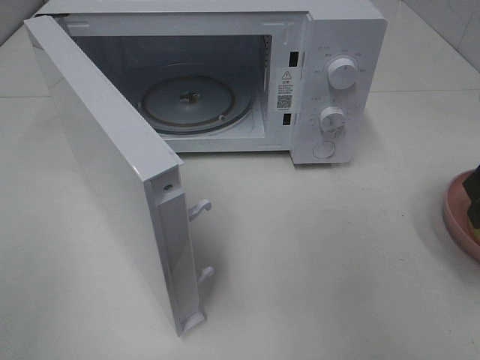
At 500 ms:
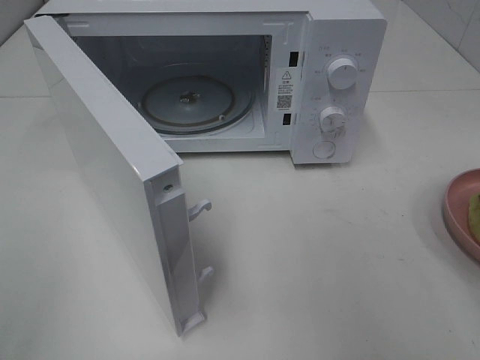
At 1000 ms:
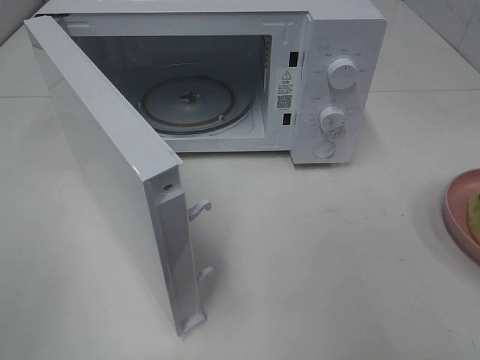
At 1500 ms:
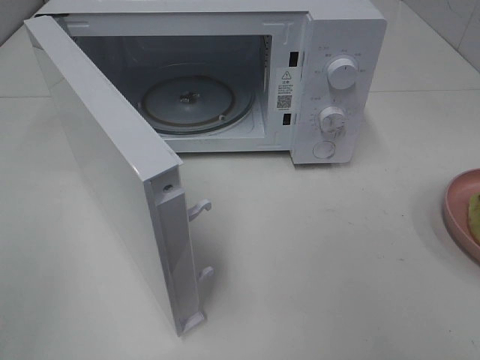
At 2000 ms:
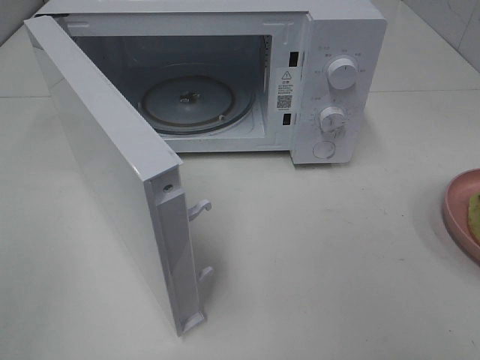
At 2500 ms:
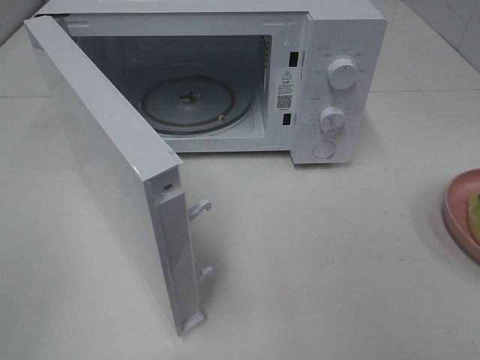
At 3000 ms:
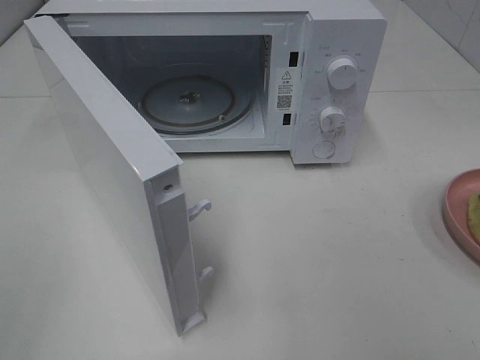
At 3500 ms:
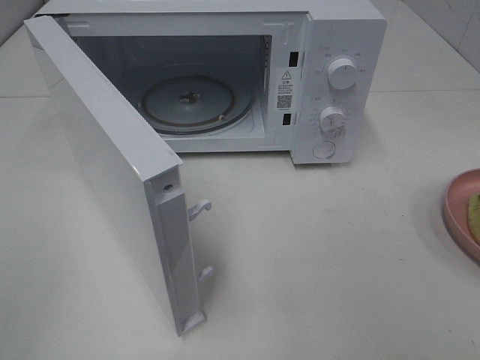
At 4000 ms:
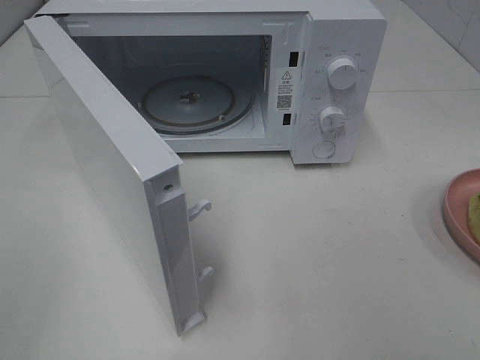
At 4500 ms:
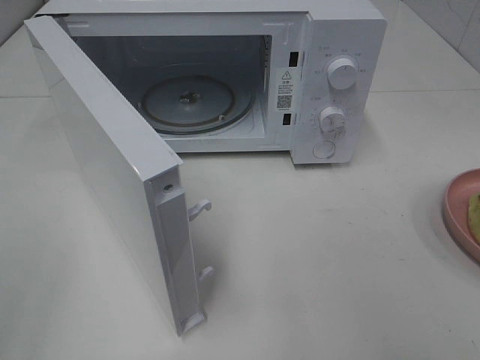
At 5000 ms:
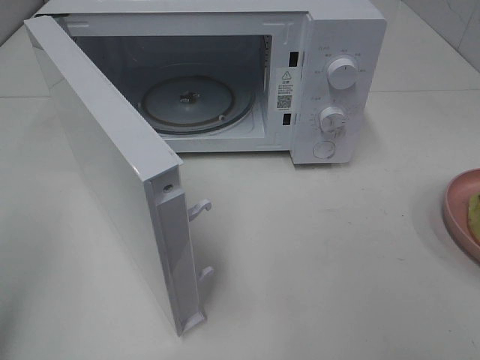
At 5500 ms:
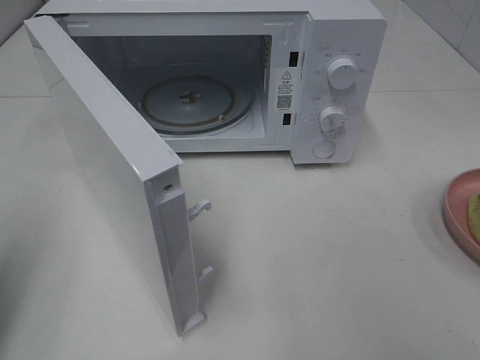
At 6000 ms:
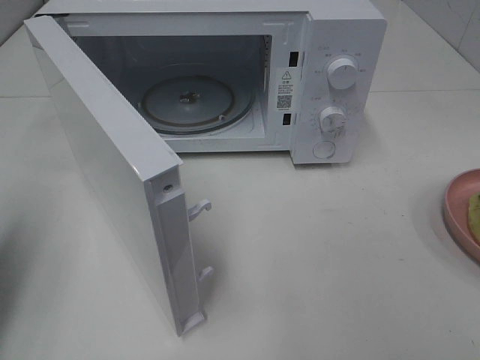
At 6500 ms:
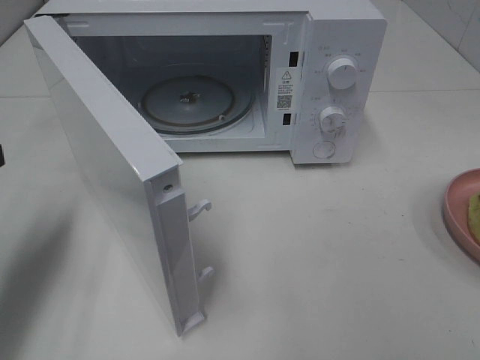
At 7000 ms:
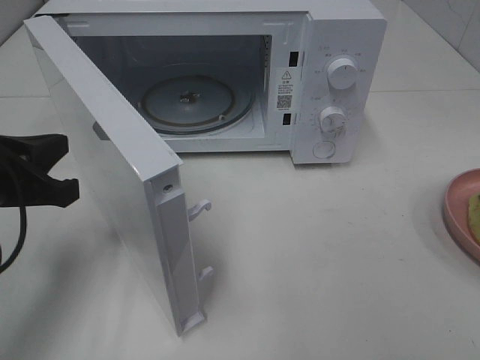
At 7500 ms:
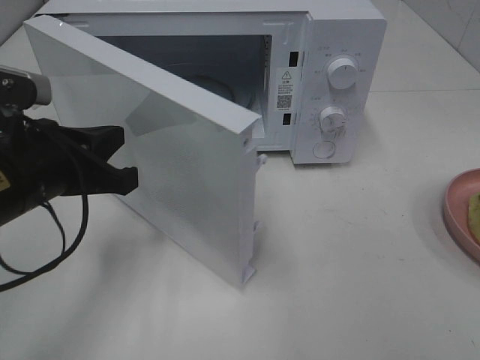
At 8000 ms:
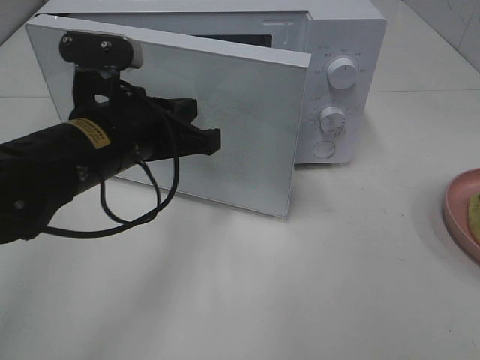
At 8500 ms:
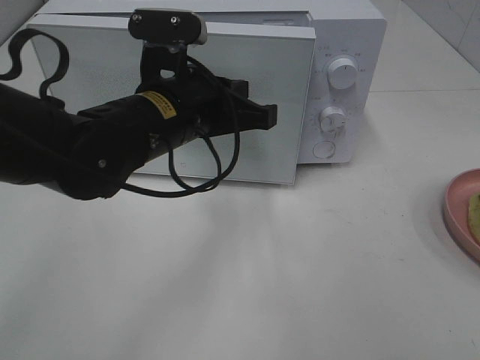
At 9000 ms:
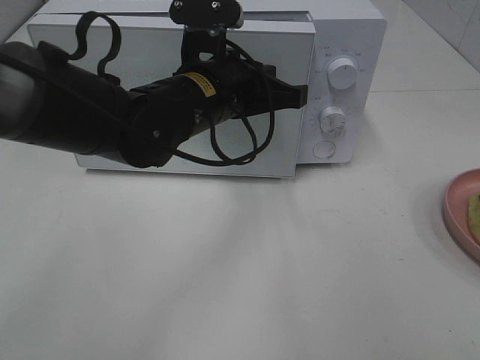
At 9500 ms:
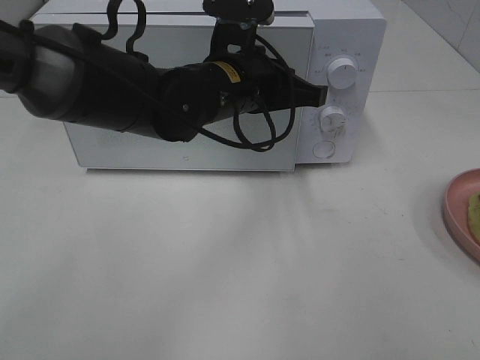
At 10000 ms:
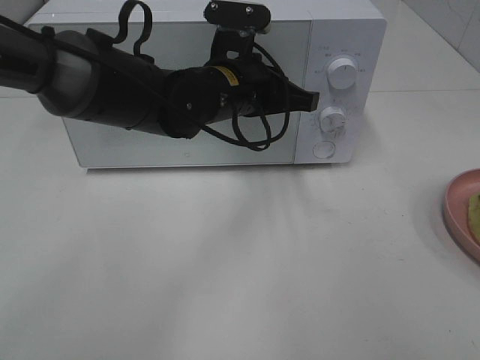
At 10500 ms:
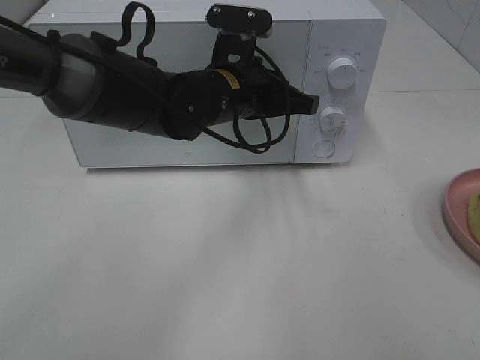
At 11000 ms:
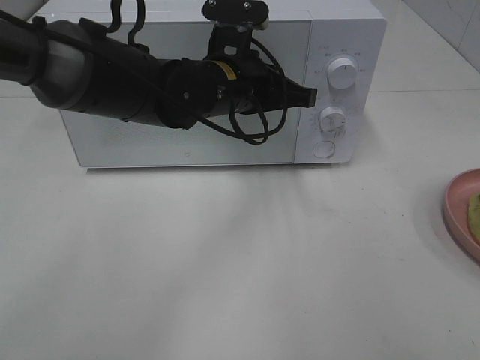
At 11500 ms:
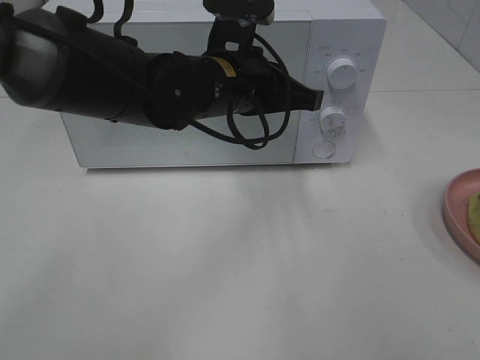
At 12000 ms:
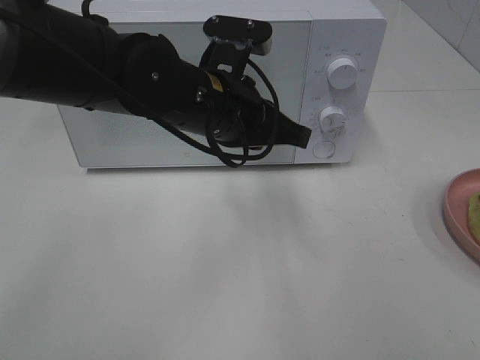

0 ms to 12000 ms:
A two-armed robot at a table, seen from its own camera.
Task of the whole recording: Heat Sandwich.
Step, 0 ms to 11500 ms: Left hand: close the microwave door.
0 ms to 2000 ms: The right gripper goes some 20 cm backward.
4000 ms to 6000 ms: The left gripper shifts approximately 20 cm forward, and closes its fingers.
6000 ms to 8000 ms: The left gripper heads to the right, covering some 20 cm.
8000 ms to 10000 ms: The left gripper heads to the right and forward, covering some 15 cm.
10000 ms to 12000 ms: The left gripper travels backward by some 5 cm.

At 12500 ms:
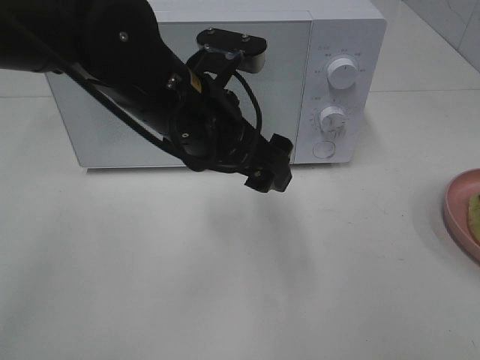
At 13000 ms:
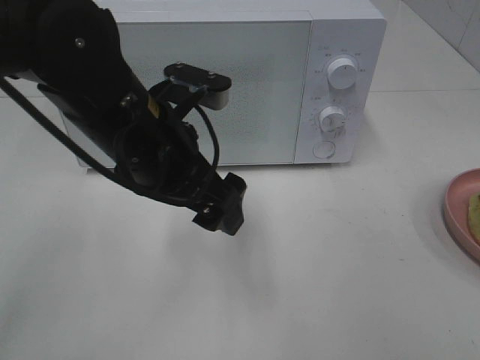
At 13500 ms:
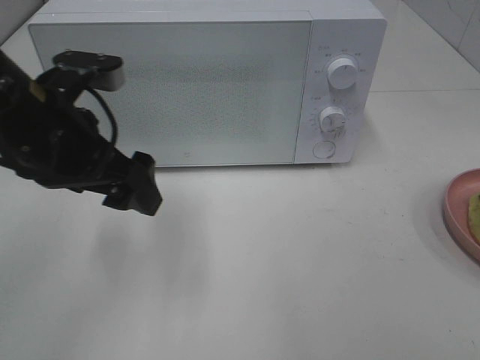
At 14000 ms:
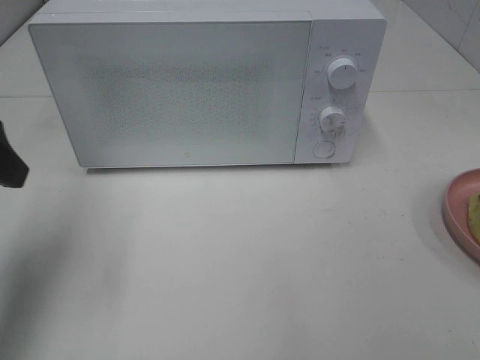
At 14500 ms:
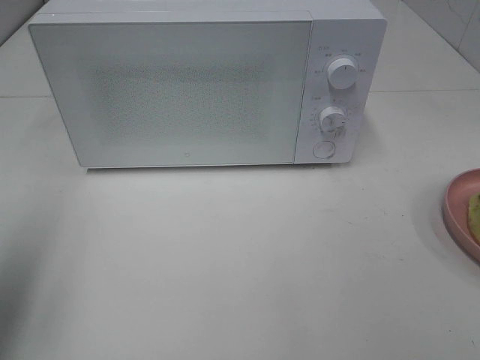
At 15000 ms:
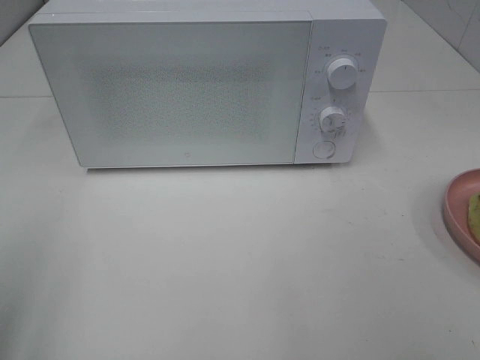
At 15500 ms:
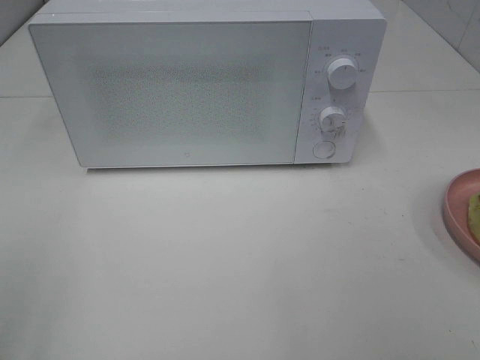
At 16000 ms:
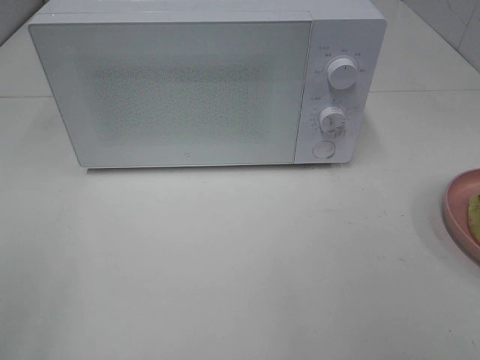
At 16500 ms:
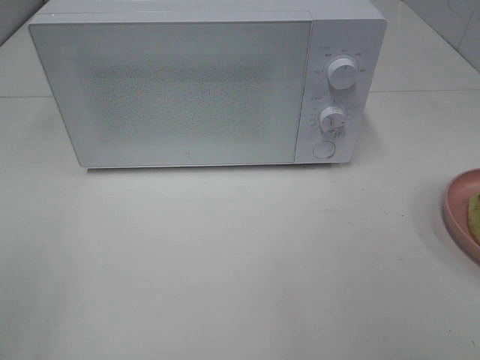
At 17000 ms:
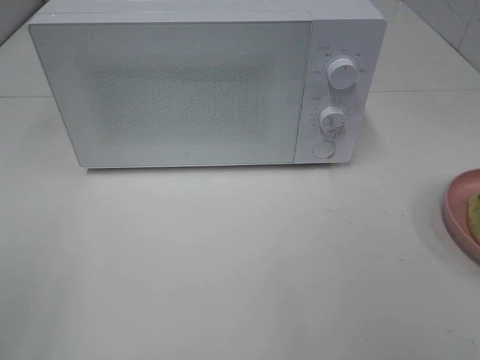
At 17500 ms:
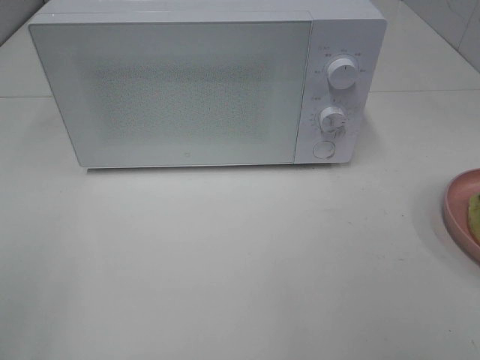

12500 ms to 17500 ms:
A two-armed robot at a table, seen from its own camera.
Task of the whole recording: Heat Sandwich.
12500 ms to 15000 ms: The left gripper shifts roughly 35 cm to the left and backward.

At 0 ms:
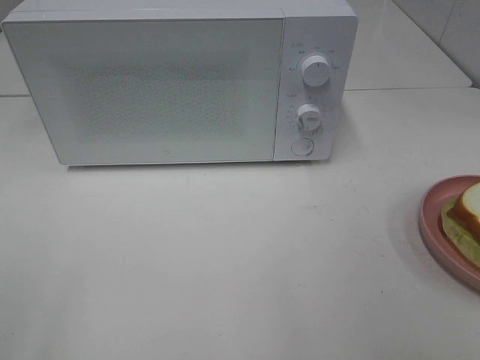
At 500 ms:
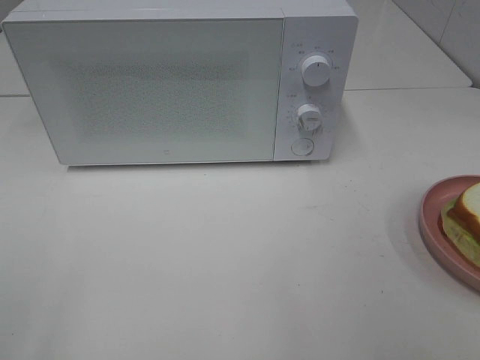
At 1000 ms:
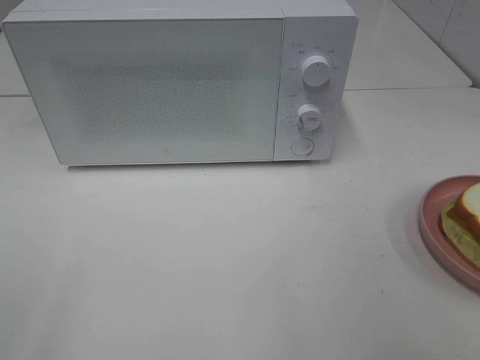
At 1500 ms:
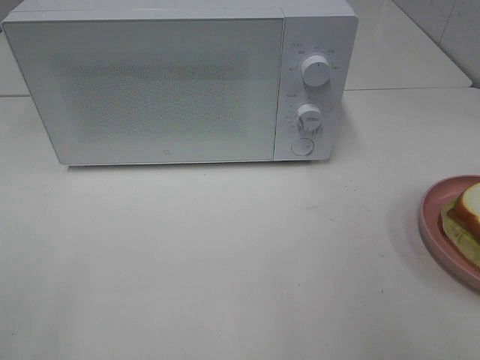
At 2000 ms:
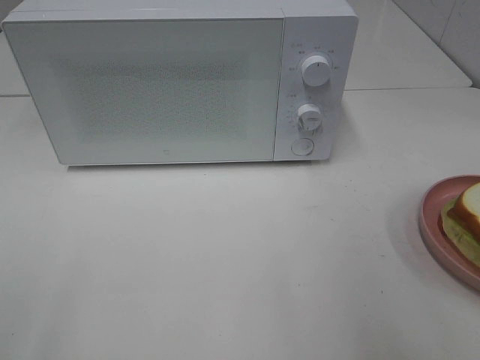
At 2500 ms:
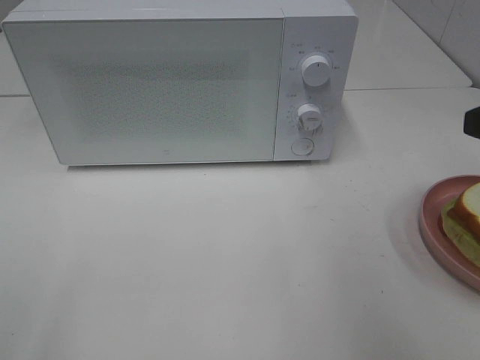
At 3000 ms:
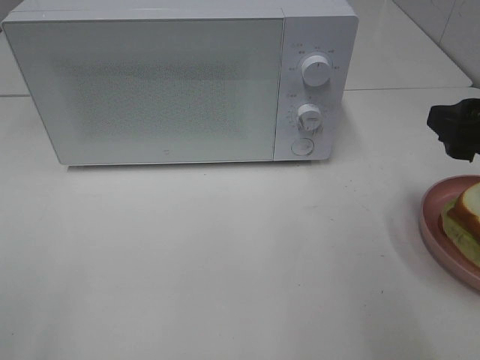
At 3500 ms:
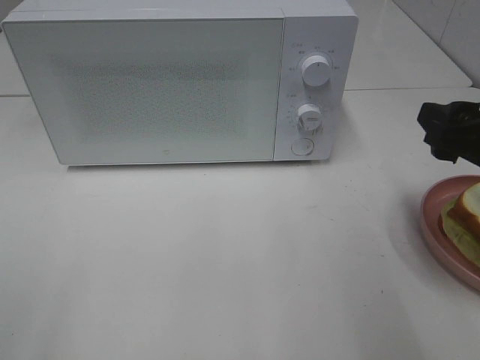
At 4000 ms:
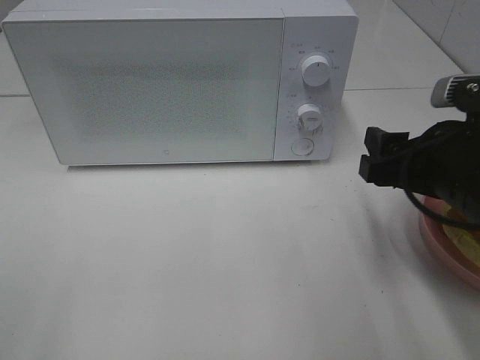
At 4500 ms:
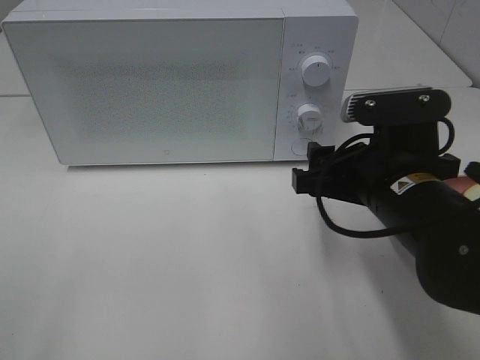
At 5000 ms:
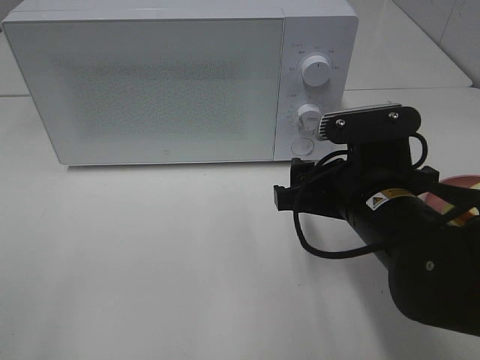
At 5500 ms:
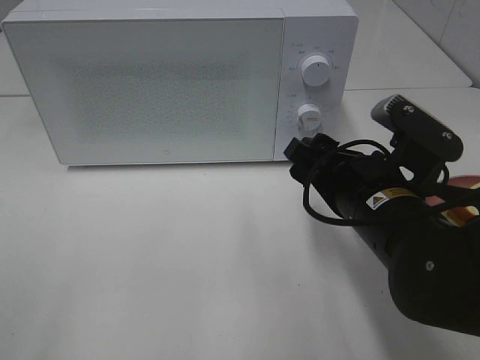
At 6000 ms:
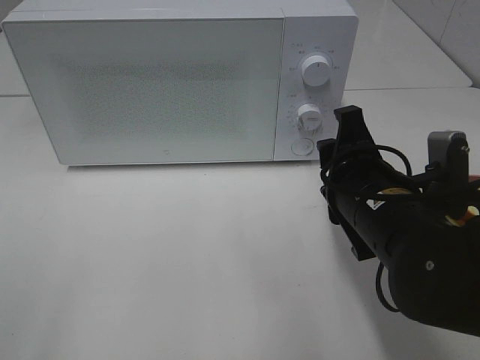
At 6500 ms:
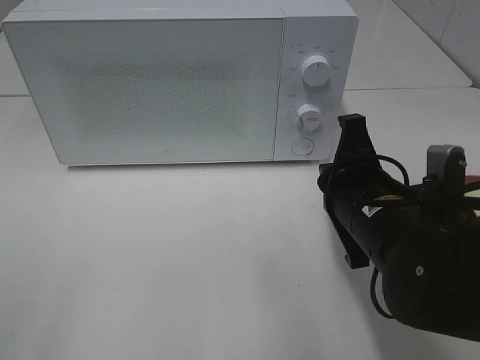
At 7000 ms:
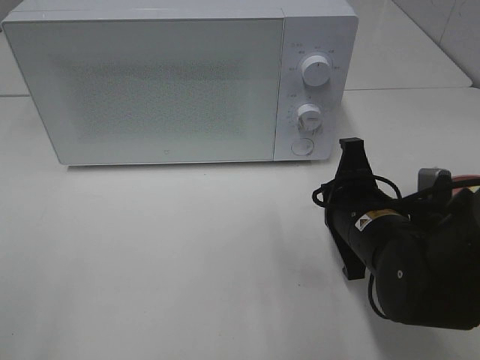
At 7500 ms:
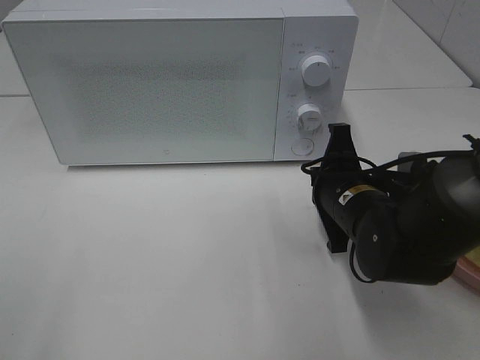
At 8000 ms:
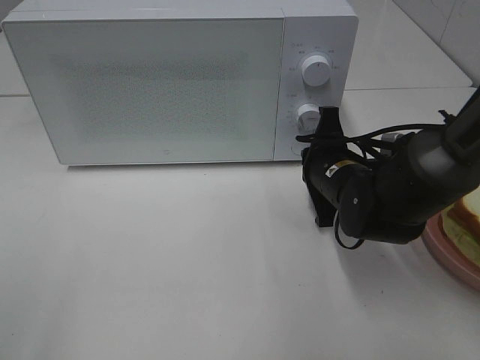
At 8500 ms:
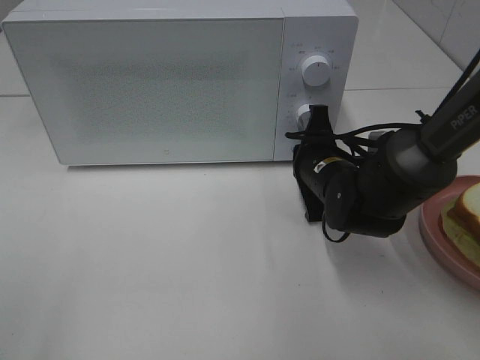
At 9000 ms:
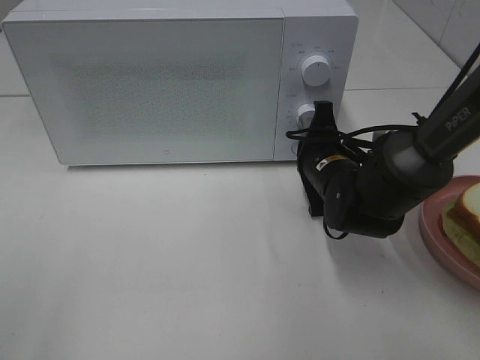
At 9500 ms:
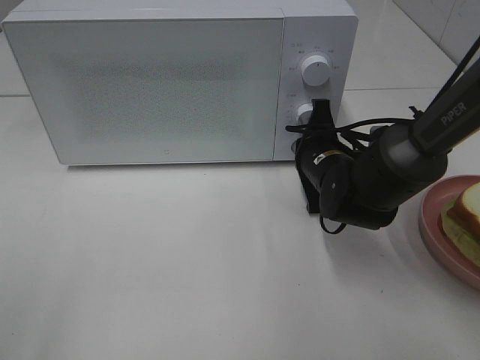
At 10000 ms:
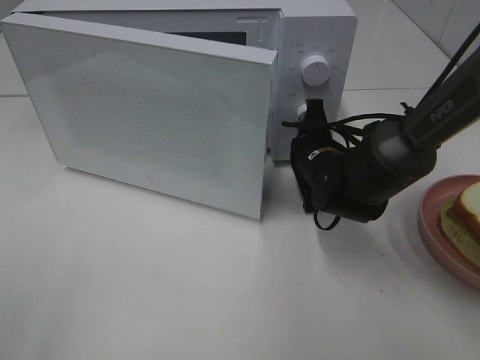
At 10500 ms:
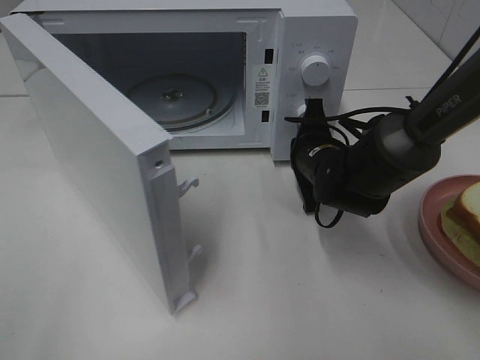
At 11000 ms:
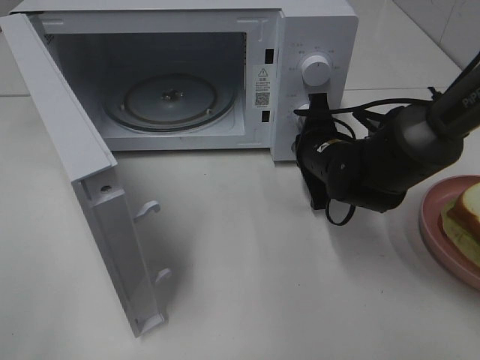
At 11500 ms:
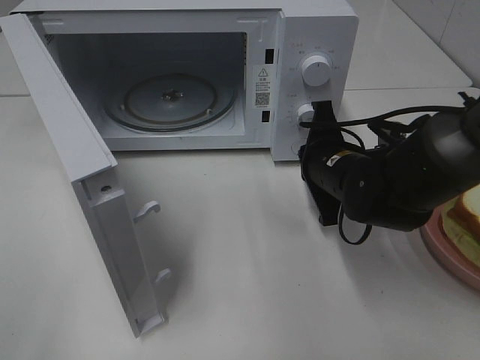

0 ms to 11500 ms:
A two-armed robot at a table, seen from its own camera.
Task of the whole recording: Heat Sandwich.
Step, 0 ms to 11000 ms: Right hand: press the switch.
2000 ms to 4000 ms: The right gripper heads downward, forward and to the left, covering approximately 15 cm.
4000 ms to 6000 ms: The right gripper travels to the left by some 5 cm.
6000 ms to 7500 ms: The right gripper heads forward and downward, covering roughly 10 cm, and closes its fingers.
7500 ms to 9500 ms: The right gripper travels forward by about 10 cm.
